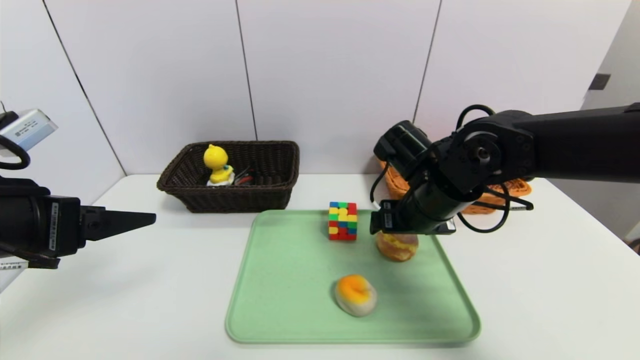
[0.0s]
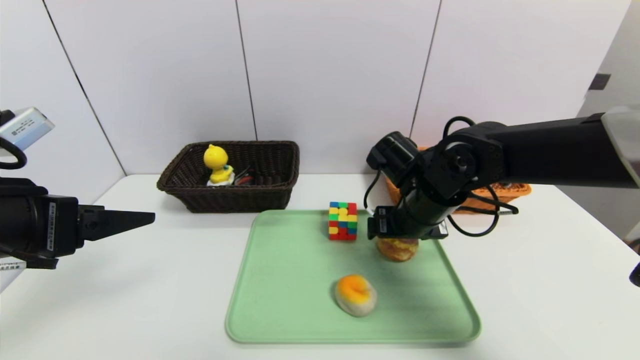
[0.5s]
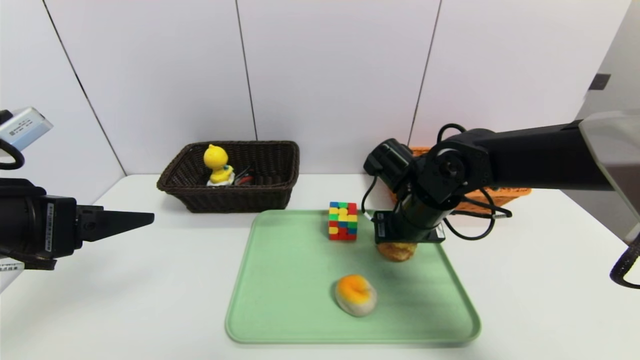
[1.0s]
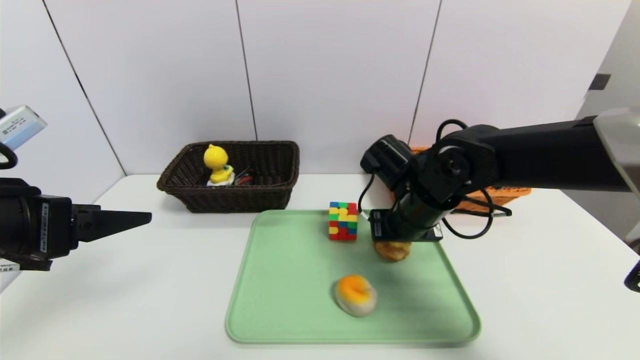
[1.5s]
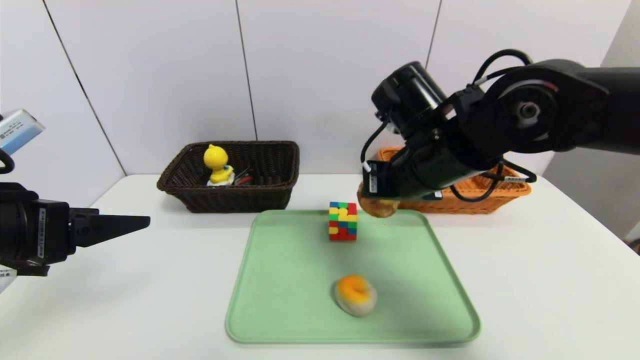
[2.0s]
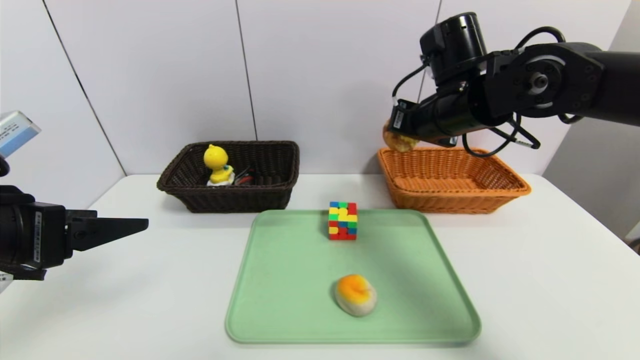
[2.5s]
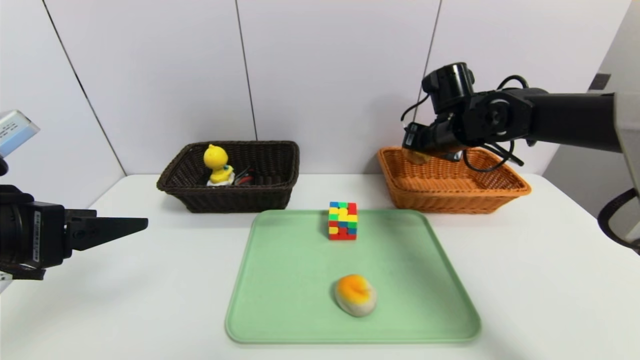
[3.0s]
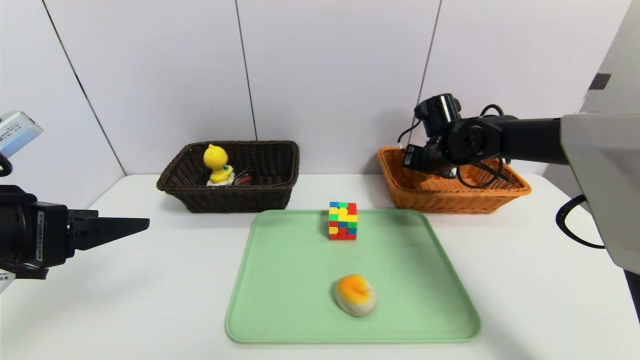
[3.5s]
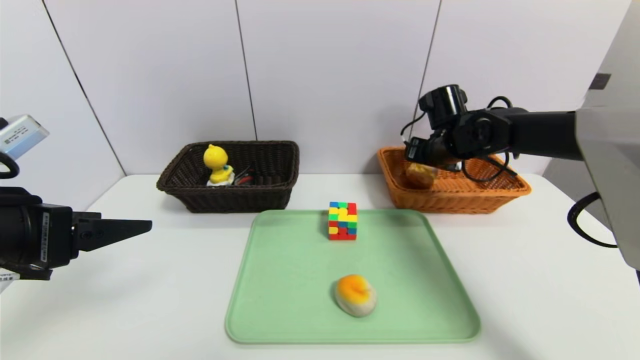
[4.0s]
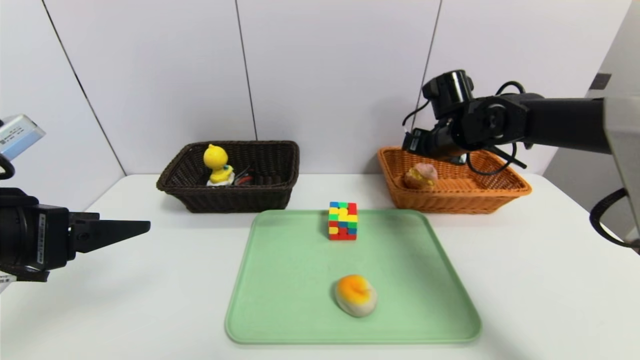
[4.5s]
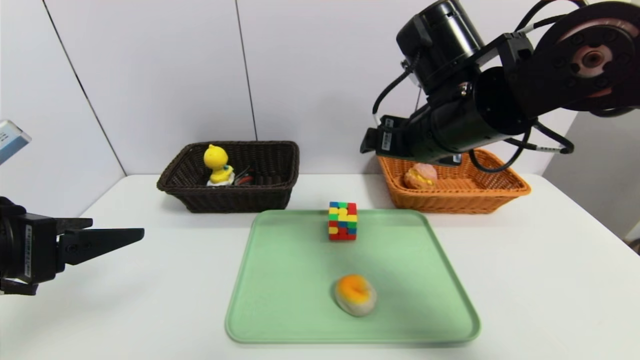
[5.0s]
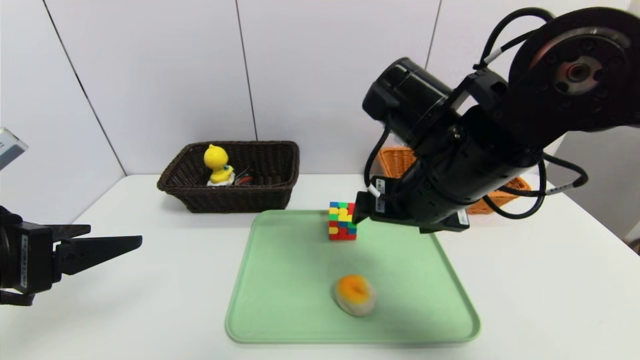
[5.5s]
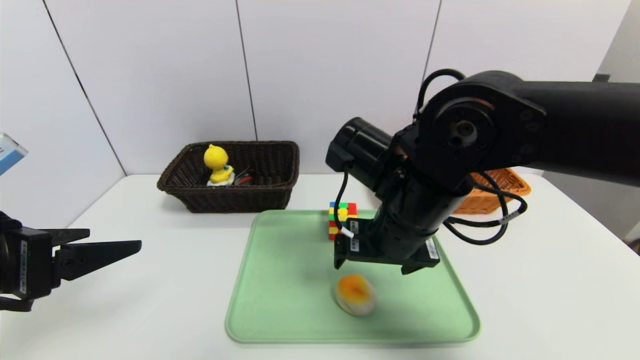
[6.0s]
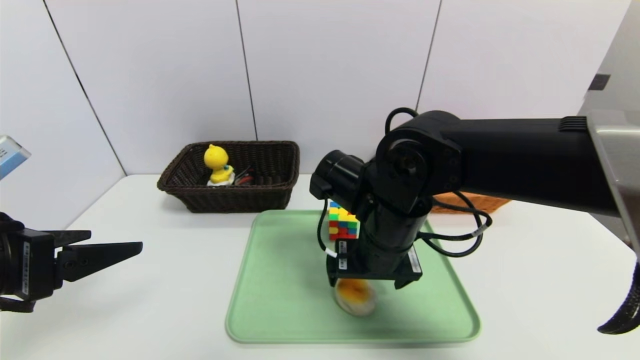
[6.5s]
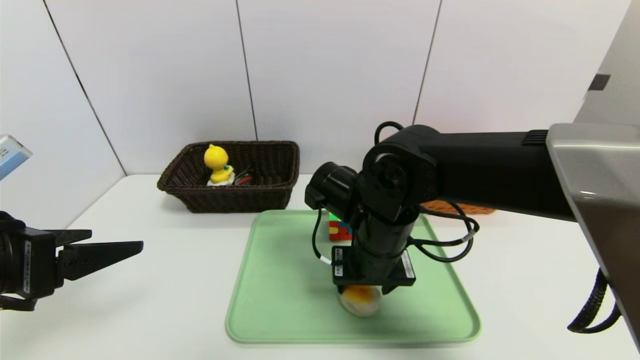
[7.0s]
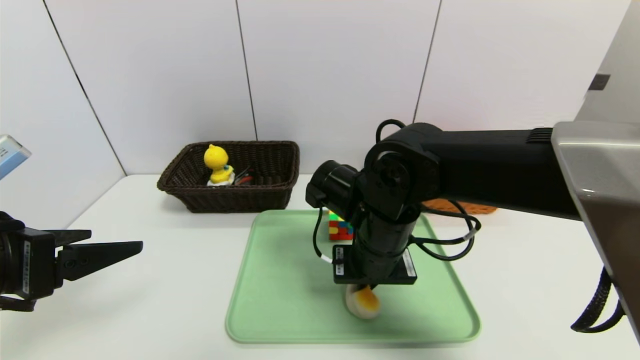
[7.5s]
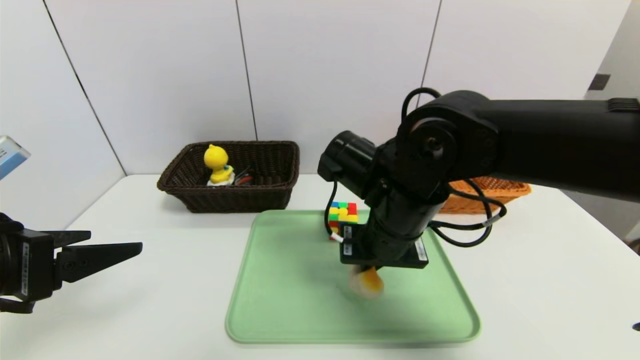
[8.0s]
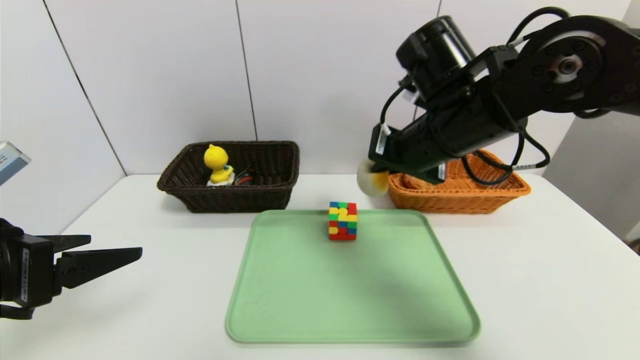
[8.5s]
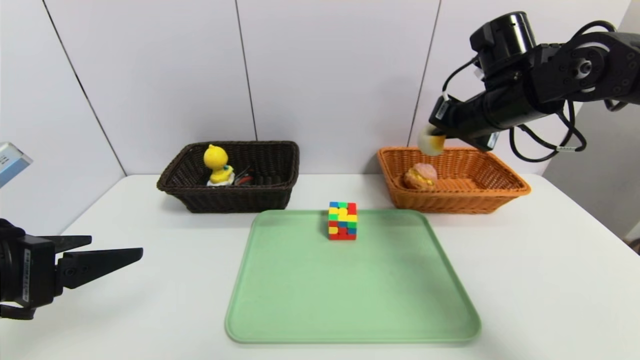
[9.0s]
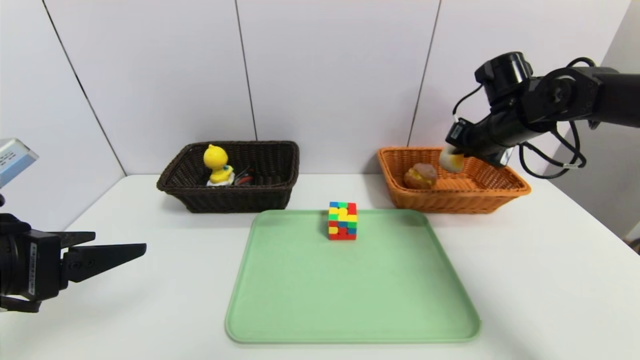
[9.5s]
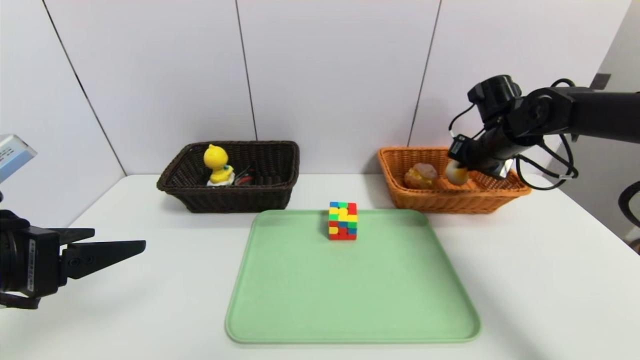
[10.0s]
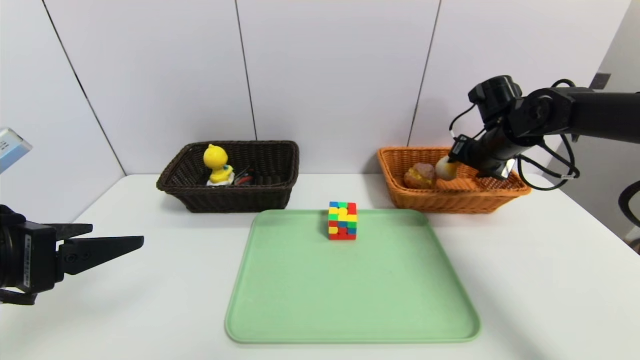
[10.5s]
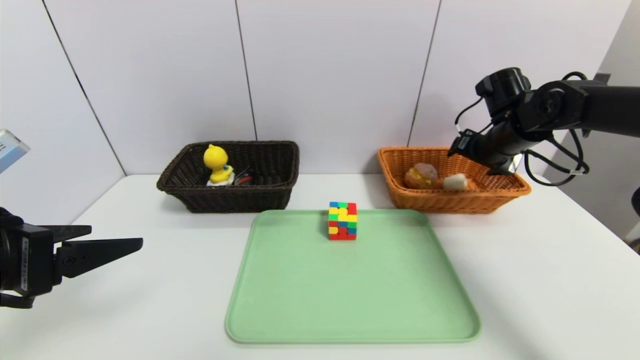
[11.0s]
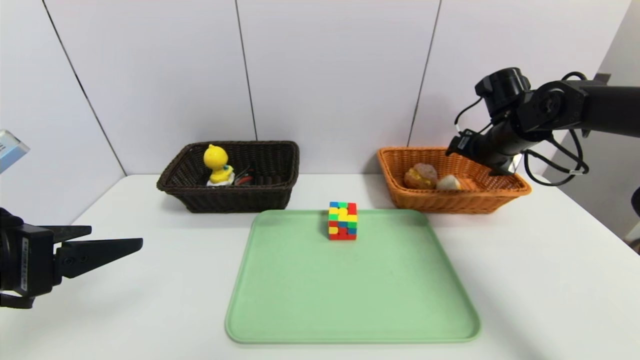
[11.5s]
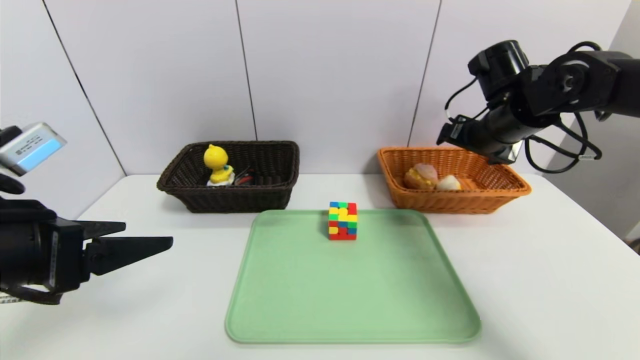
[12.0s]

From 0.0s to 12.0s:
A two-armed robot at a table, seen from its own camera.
Task of the whole recording: place the food in the right basket with the right gripper, and place the non food items in the left basket with the left gripper.
Step, from 0.0s to 4.0s: Grasp the round bread and put it in the right basket.
Step, from 4.5s to 11.5s: Grasp the egg yolk pastry and put it in the right basket.
From 0.0s to 2.0s: The right gripper shifts about 5 cm upward, and closes up.
From 2.0s to 4.0s: The right gripper goes roughly 20 cm forward and to the right, and opens its fingers.
From 4.0s to 6.0s: The right gripper goes some 25 cm backward and to the left.
From 6.0s to 8.0s: The right gripper closes.
From 8.0s to 10.0s: The right gripper moves to the right and forward, some 30 cm.
From 10.0s to 12.0s: The right gripper travels upward and backward by some 5 cm, and opens.

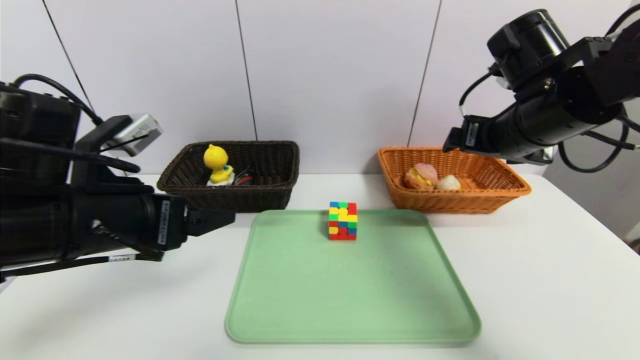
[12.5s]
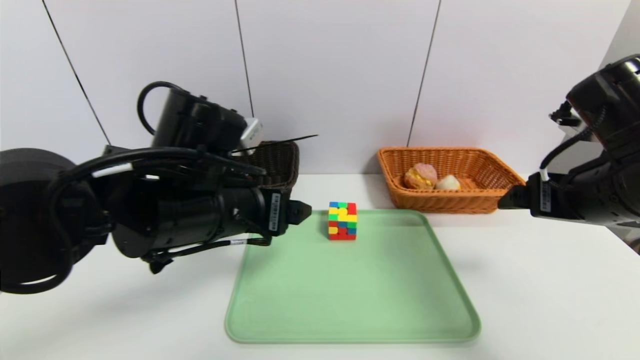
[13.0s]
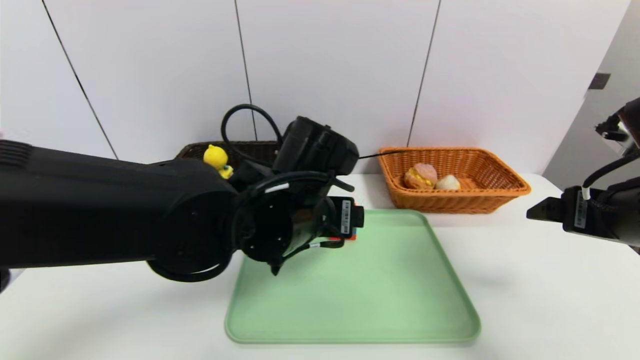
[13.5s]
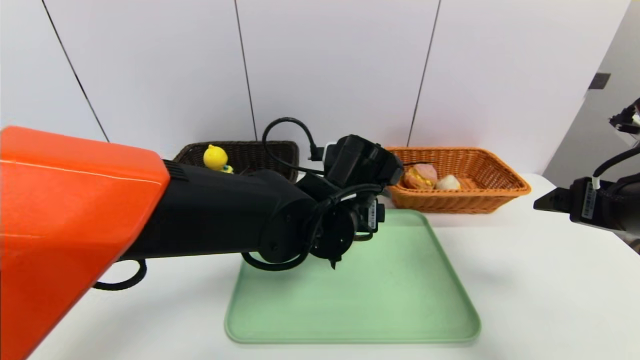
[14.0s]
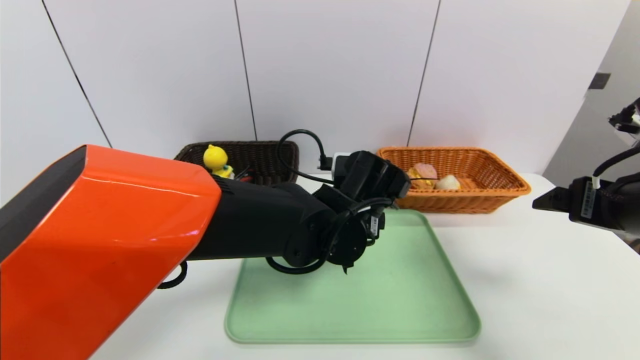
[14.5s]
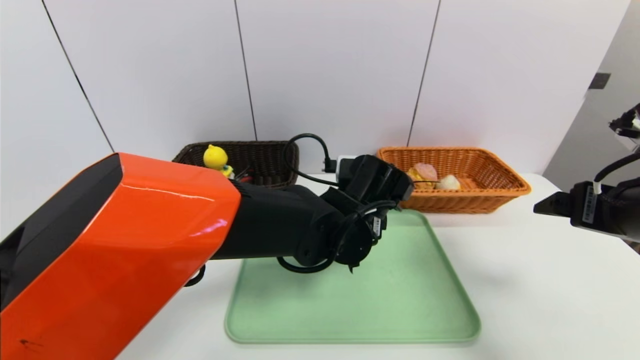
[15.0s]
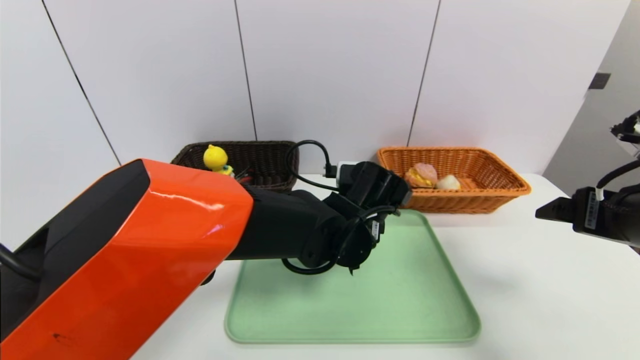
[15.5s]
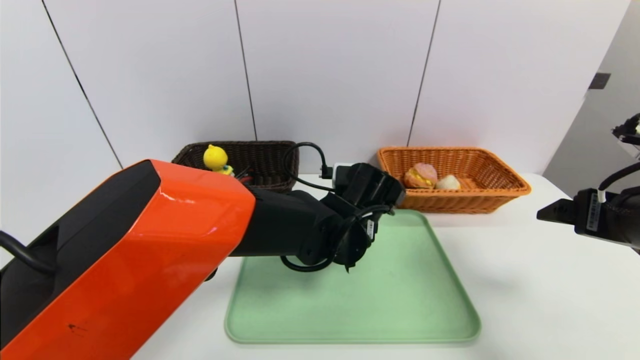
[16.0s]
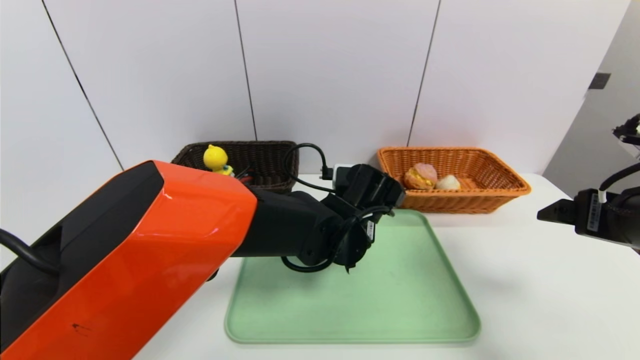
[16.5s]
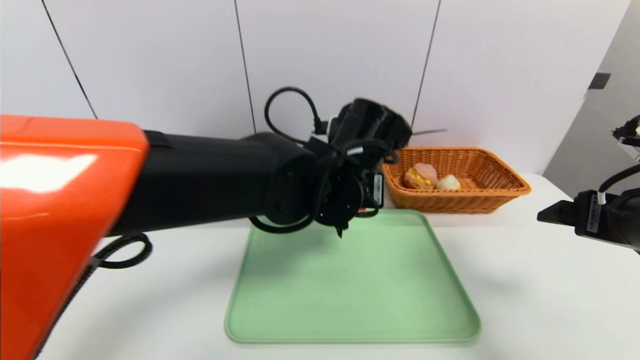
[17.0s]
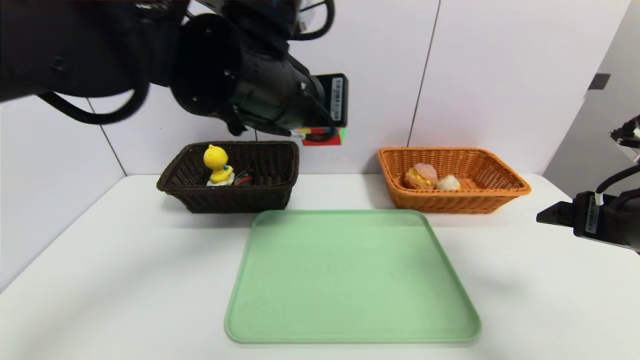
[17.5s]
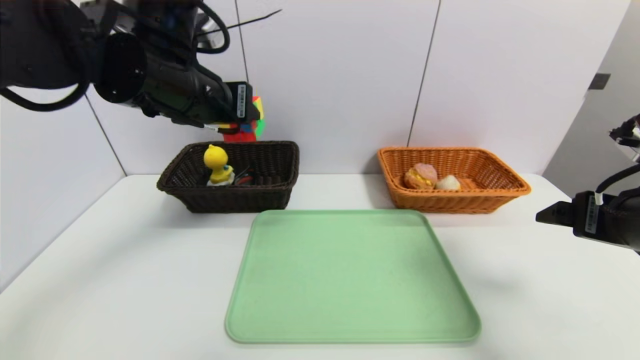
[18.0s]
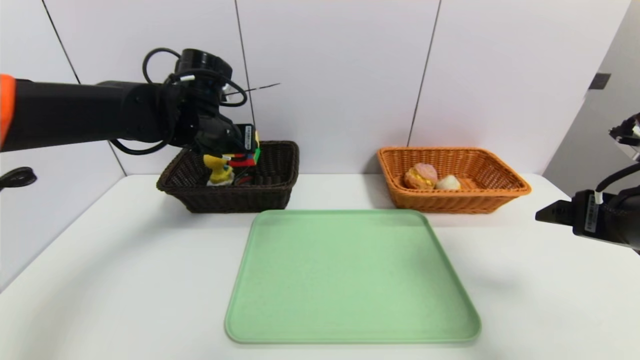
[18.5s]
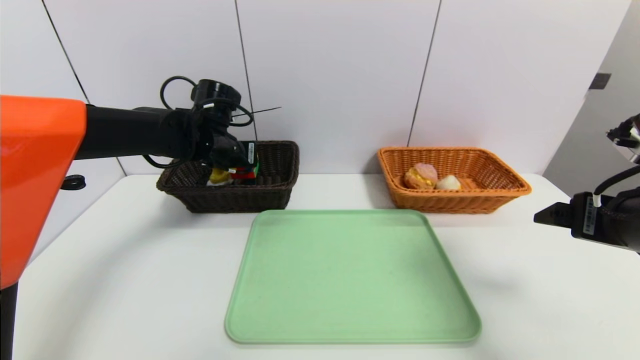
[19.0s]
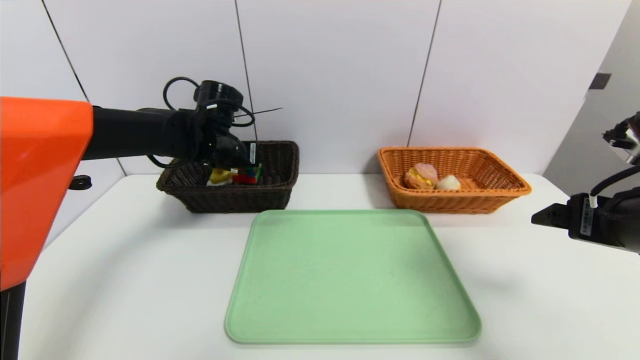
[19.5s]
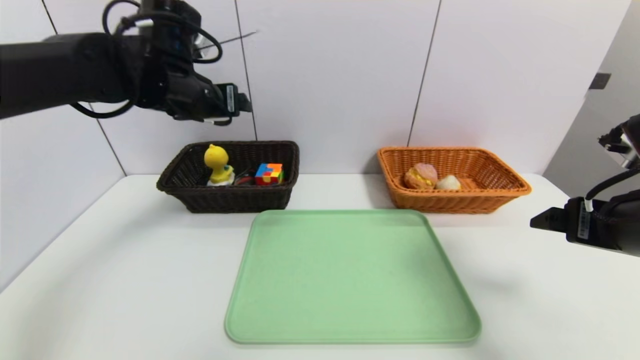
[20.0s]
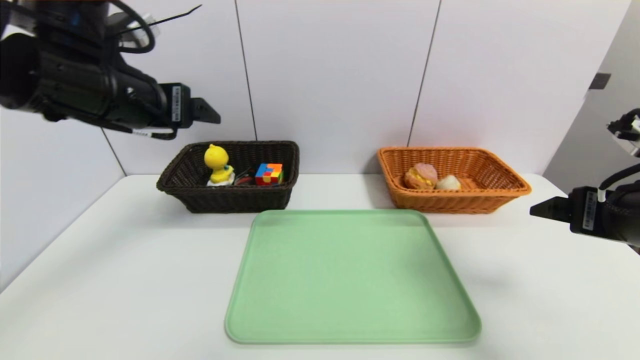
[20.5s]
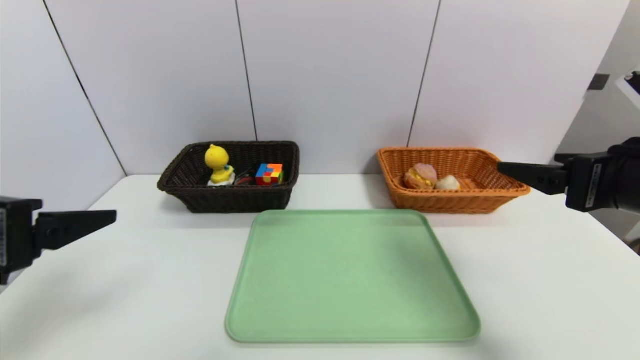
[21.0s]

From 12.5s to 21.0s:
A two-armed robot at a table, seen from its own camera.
Task of the whole recording: place the food in the right basket with the right gripper, and place the non food items in the left basket with the left gripper.
Step, from 12.5s to 19.5s: Grasp the rubiks cube and put it in the left basket.
From 12.5s to 14.5s: The right gripper moves backward and to the right, approximately 15 cm; the left gripper heads to the right, covering some 25 cm.
From 14.5s to 16.5s: The left gripper closes.
From 16.5s to 19.0s: The left gripper goes about 25 cm to the left and forward.
From 19.0s to 21.0s: The left gripper goes approximately 30 cm backward, and opens its fingers.
